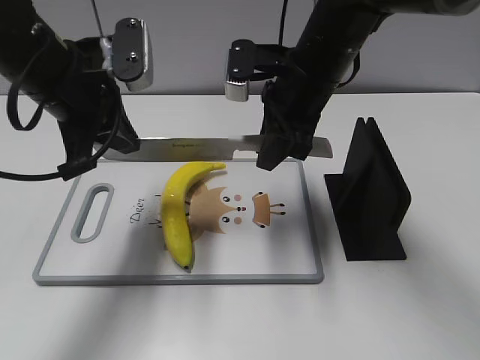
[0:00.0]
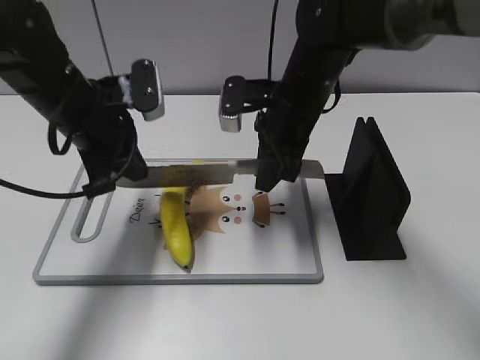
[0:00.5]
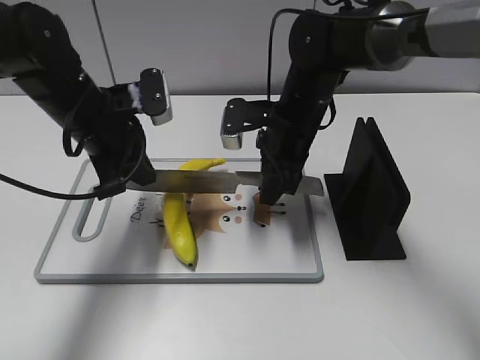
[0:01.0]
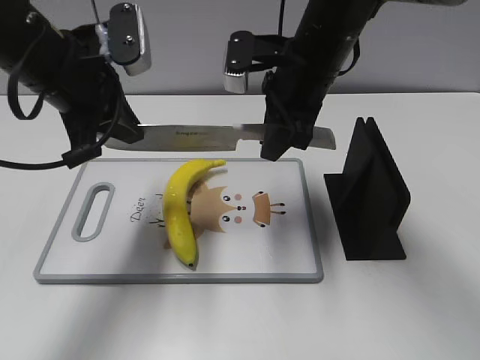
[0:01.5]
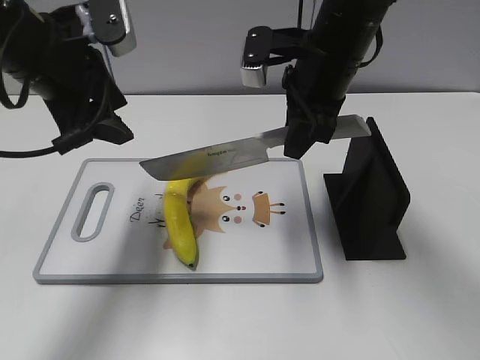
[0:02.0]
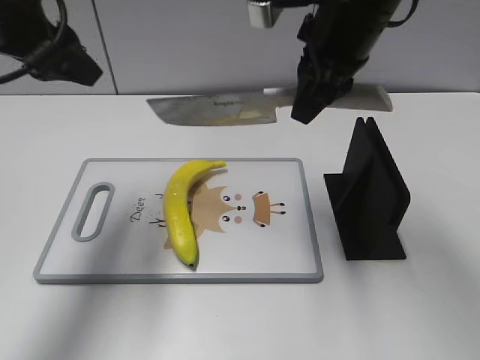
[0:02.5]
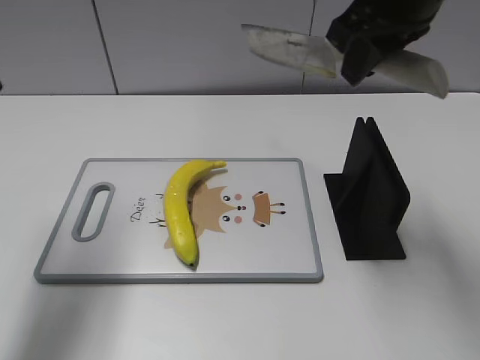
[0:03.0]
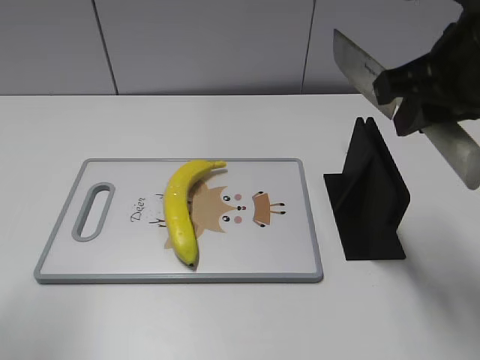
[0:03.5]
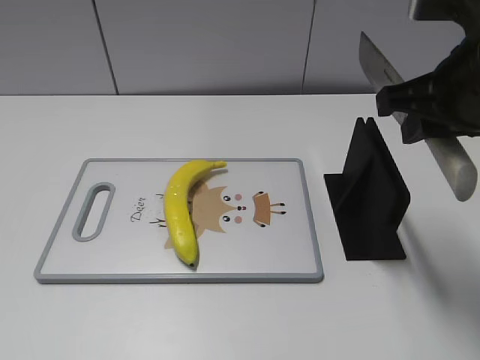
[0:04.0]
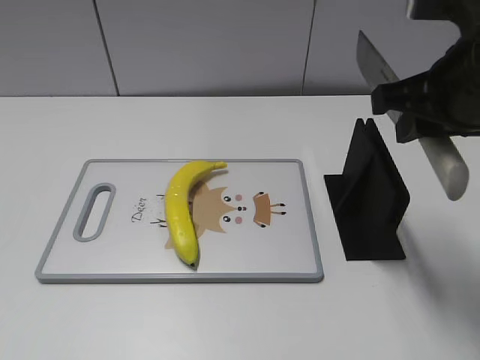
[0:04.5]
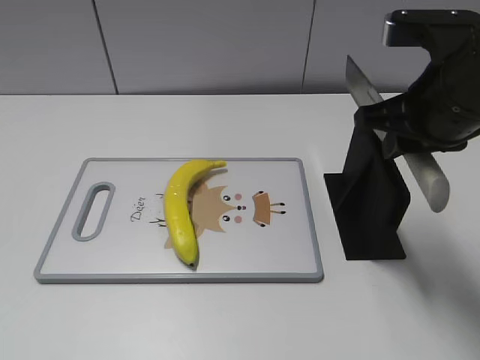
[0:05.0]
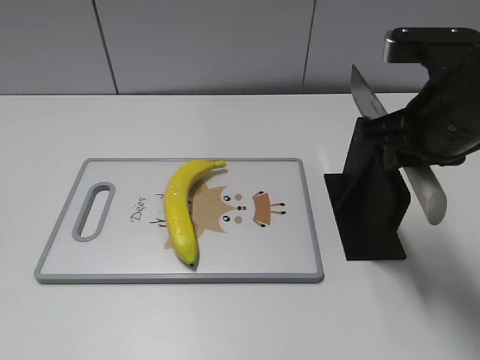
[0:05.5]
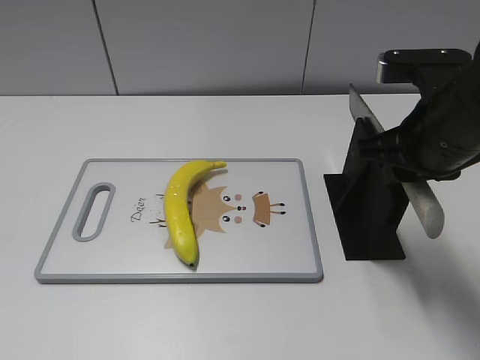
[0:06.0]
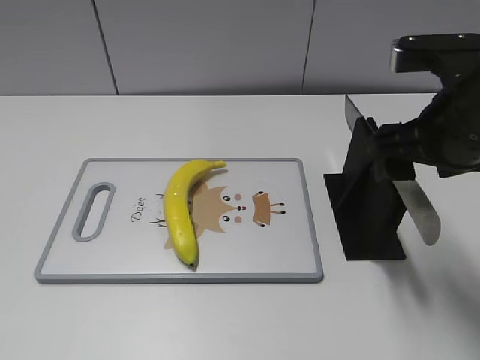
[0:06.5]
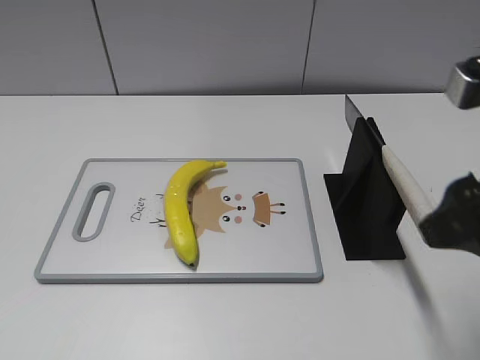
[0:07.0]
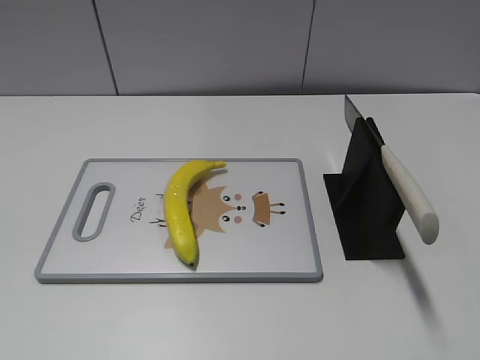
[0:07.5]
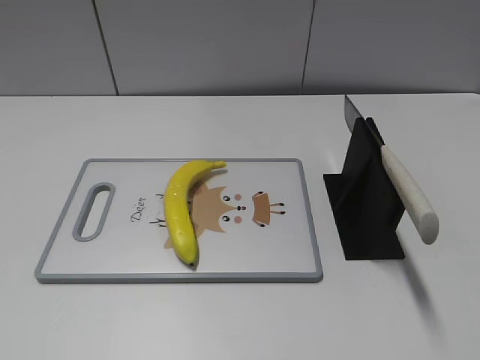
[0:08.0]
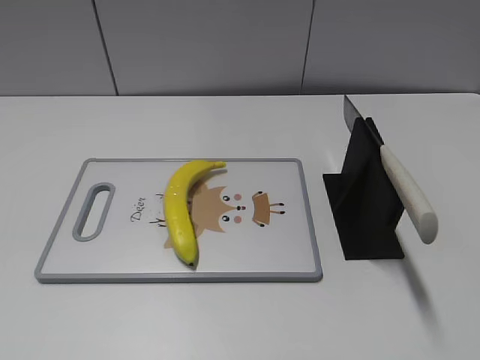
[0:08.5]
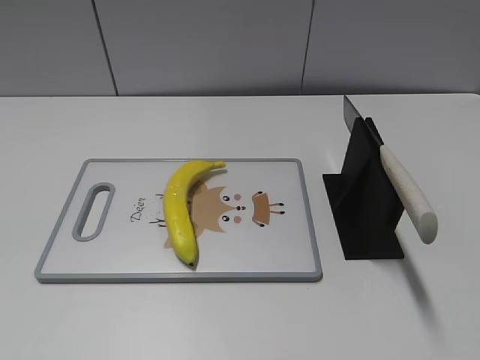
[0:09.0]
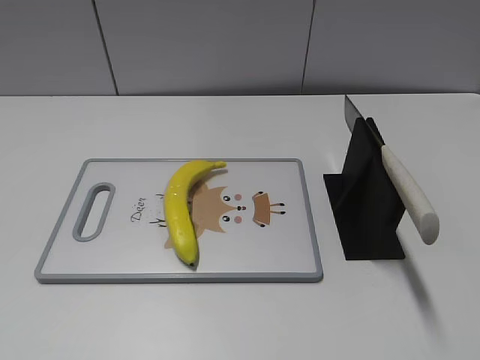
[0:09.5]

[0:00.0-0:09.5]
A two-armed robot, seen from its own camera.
Task of the whole recording: cut plastic banana.
Step, 0:01.5 to 0:03.0: Cut the banana with your right hand.
Step, 0:05.0 to 0:09.5: Place the knife on the storage rack with your right hand.
0:00.0 to 0:02.0: The right gripper moves roughly 10 cm downward and comes back. The left gripper travels downward and back again, about 5 cm each way, and opens.
0:02.0 to 0:04.0: The left gripper is displaced backward and to the left by roughly 30 cm. Meanwhile the right gripper heads backward and to the right, covering approximately 15 cm.
0:05.5 to 0:07.5: The right gripper goes some 25 cm backward and to the right, and opens up.
